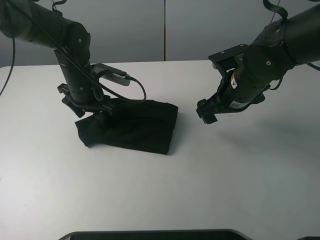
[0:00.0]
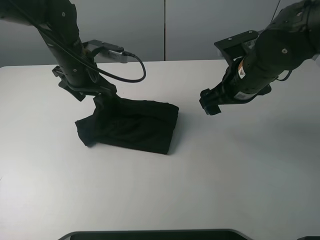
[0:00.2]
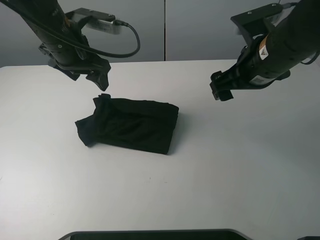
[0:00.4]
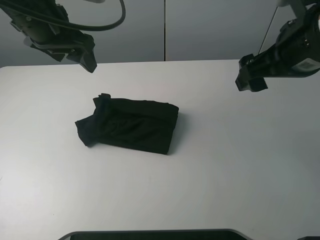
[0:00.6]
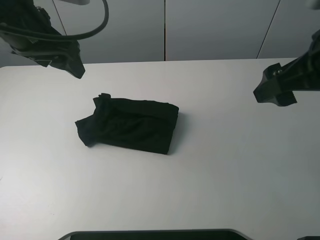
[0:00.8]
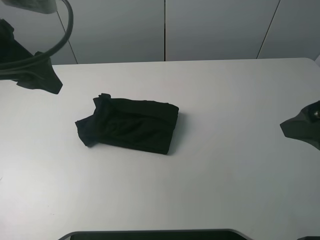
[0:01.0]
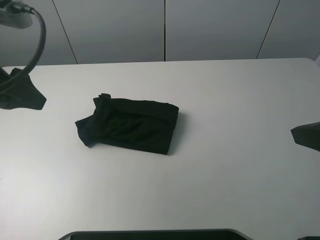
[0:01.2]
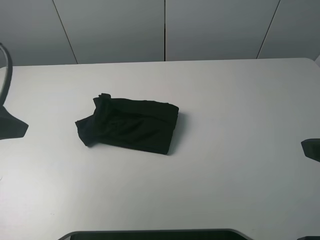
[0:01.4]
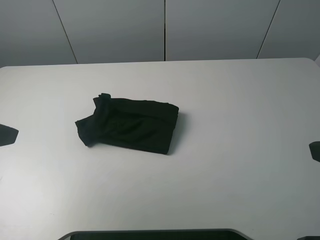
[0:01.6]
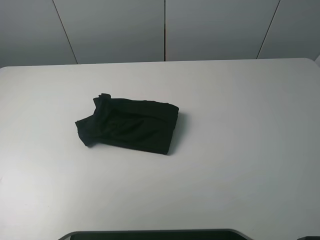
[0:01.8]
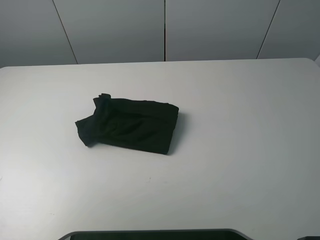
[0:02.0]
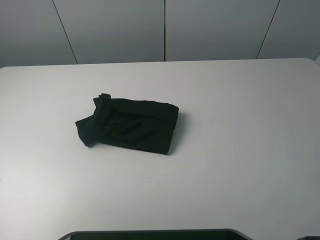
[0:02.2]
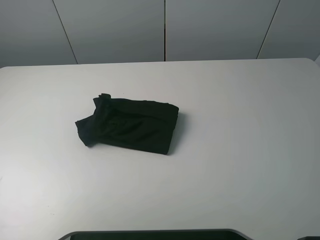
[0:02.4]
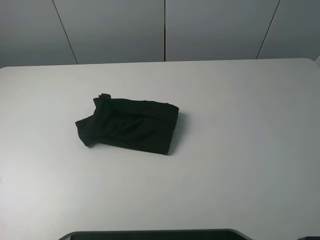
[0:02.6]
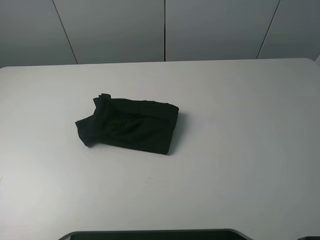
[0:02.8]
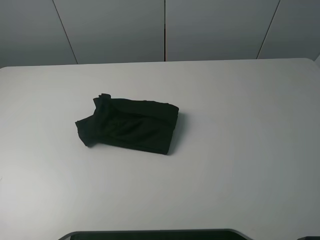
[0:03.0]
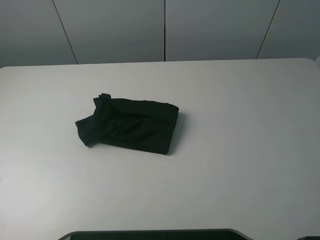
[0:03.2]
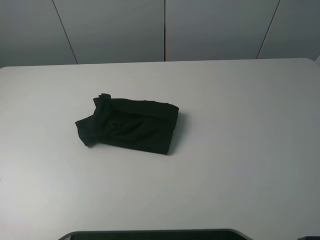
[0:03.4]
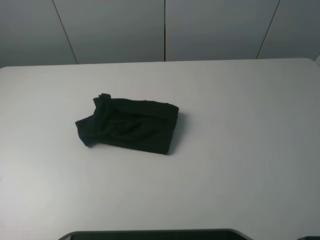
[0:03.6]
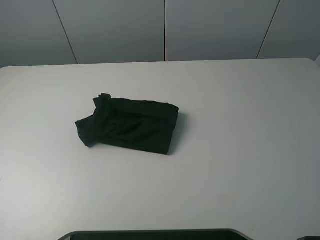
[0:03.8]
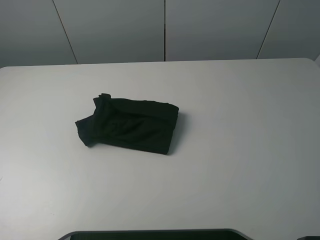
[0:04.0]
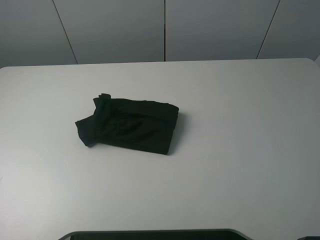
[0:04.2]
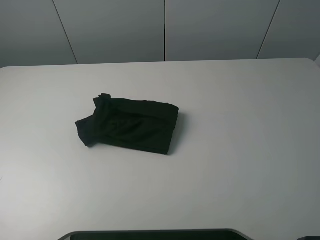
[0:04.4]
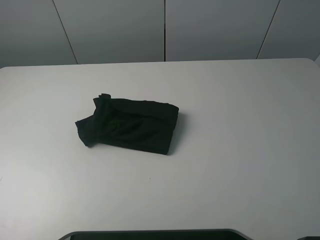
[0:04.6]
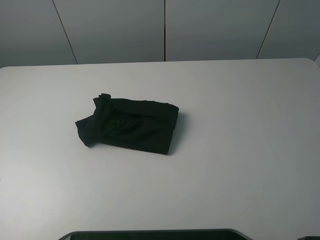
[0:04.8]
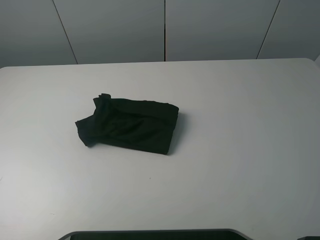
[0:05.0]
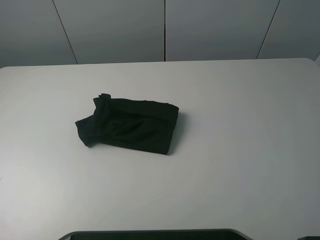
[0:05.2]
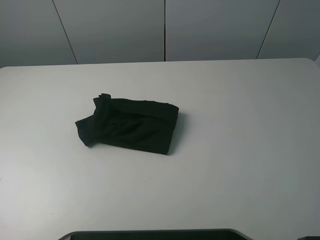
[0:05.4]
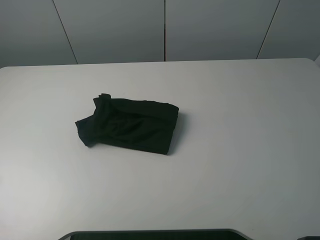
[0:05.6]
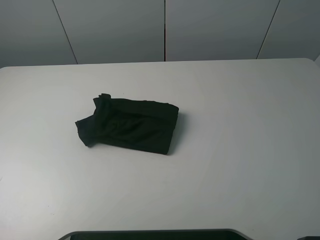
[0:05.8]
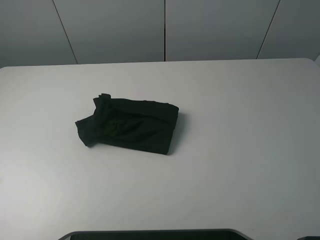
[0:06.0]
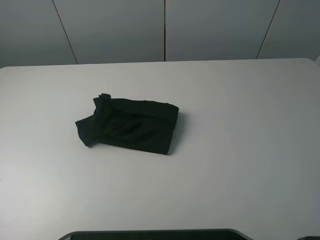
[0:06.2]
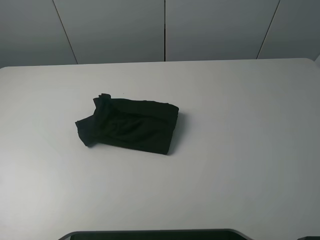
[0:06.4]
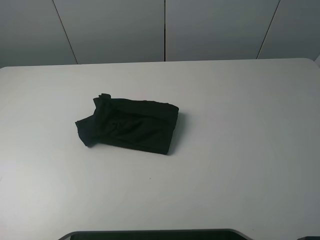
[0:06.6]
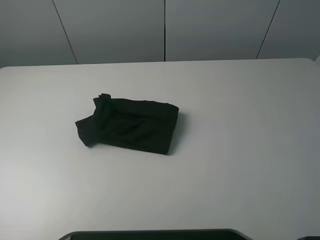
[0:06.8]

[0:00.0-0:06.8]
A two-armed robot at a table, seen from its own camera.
Task of the whole recording: fold the clothes on the table.
0:00.0 to 0:01.4: The right gripper travels backward, upward and to the right by about 25 cm; the left gripper is displaced backward, upward and to the left by approximately 30 cm.
0:01.4 to 0:02.8: The left gripper moves backward and to the left, about 15 cm.
0:05.4 to 0:06.8: The two grippers keep their place.

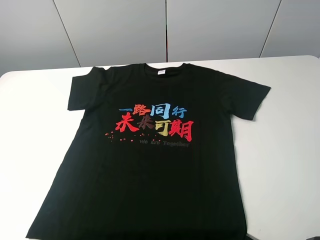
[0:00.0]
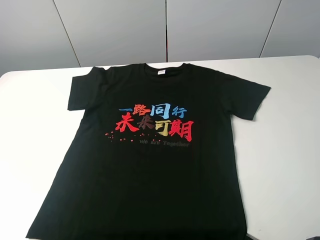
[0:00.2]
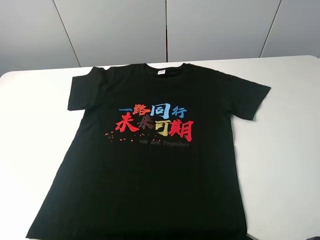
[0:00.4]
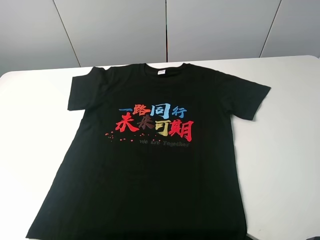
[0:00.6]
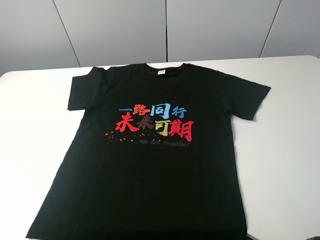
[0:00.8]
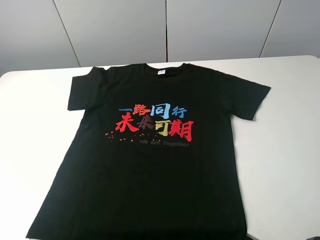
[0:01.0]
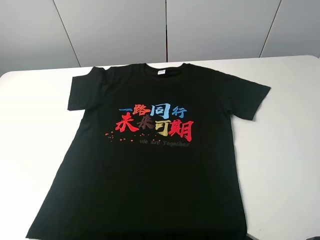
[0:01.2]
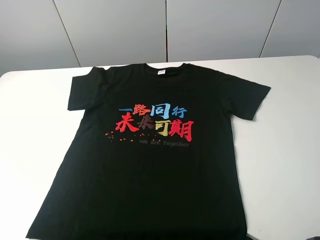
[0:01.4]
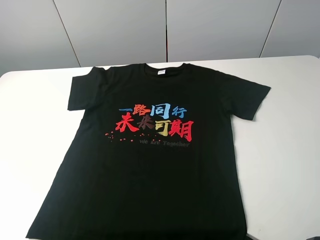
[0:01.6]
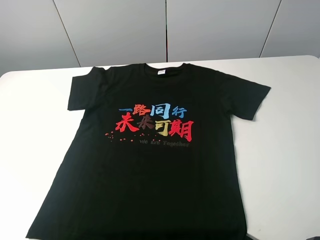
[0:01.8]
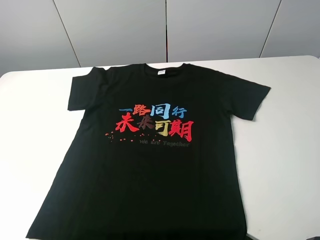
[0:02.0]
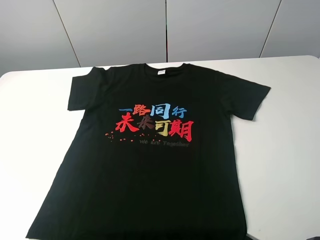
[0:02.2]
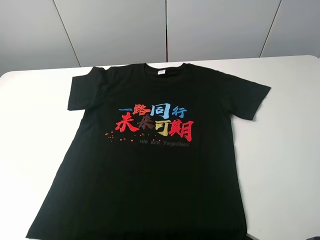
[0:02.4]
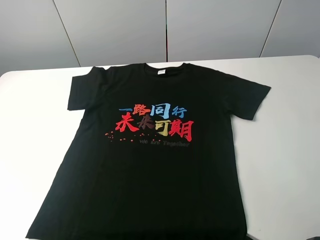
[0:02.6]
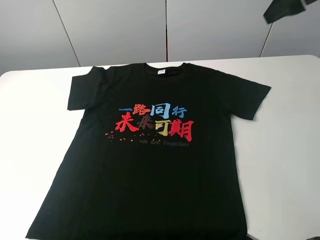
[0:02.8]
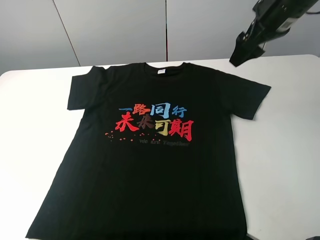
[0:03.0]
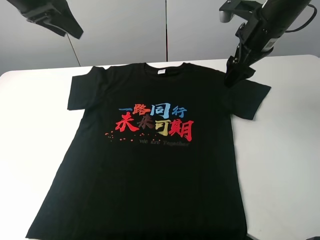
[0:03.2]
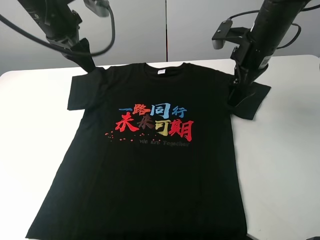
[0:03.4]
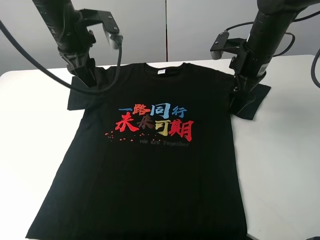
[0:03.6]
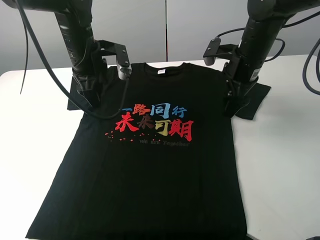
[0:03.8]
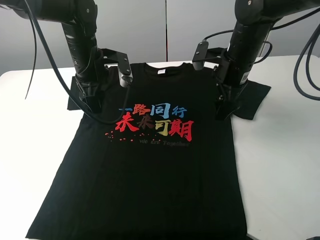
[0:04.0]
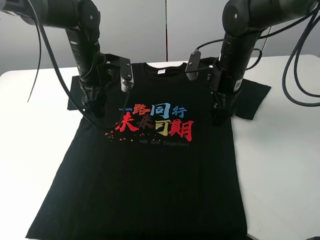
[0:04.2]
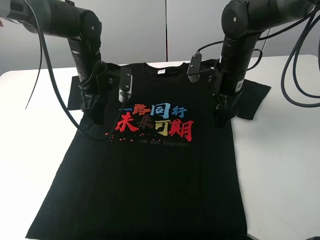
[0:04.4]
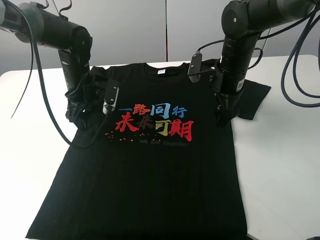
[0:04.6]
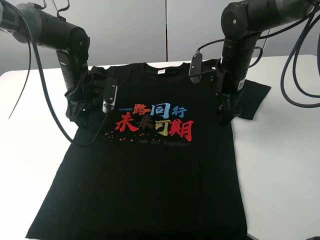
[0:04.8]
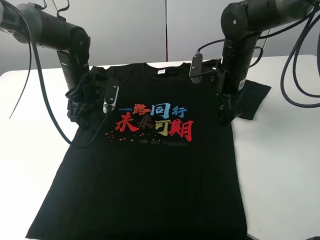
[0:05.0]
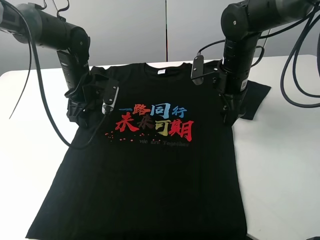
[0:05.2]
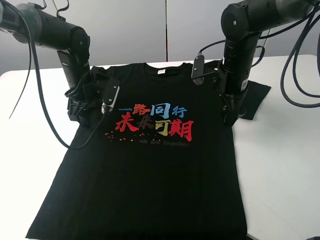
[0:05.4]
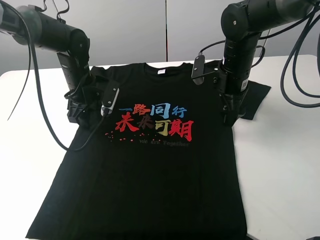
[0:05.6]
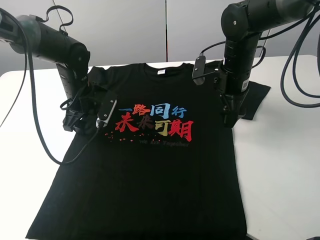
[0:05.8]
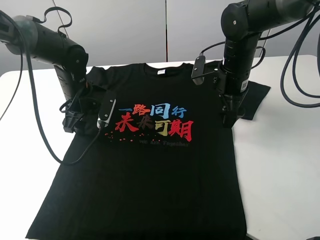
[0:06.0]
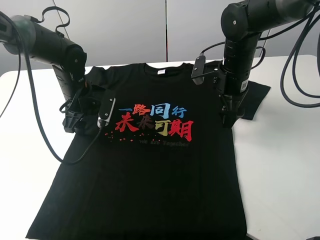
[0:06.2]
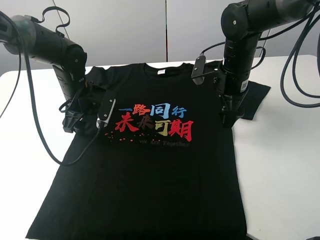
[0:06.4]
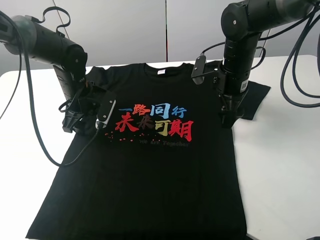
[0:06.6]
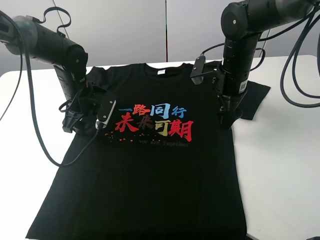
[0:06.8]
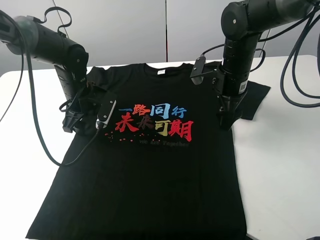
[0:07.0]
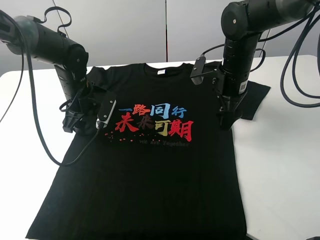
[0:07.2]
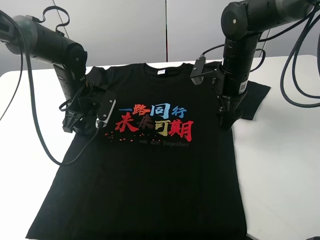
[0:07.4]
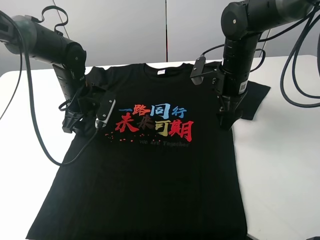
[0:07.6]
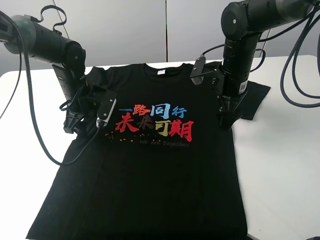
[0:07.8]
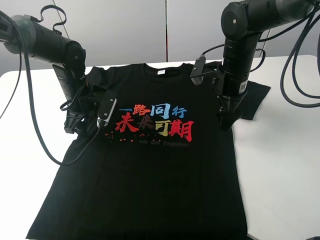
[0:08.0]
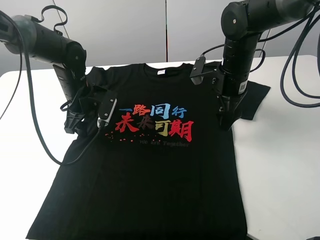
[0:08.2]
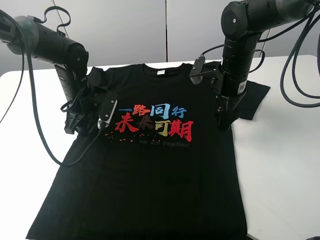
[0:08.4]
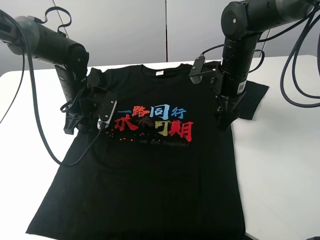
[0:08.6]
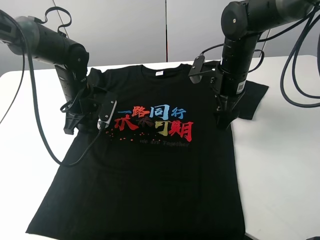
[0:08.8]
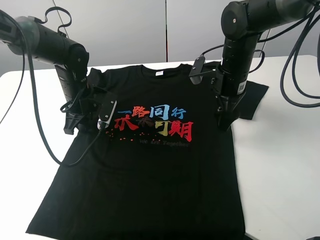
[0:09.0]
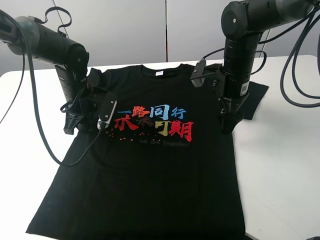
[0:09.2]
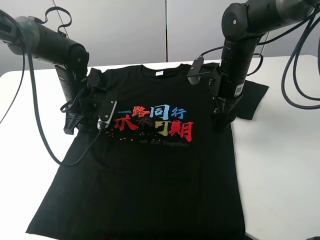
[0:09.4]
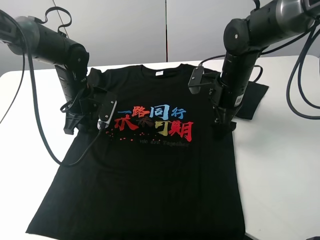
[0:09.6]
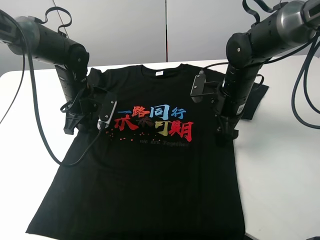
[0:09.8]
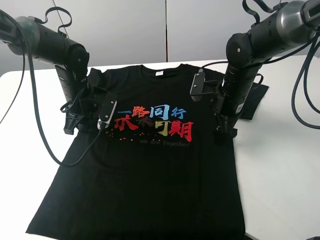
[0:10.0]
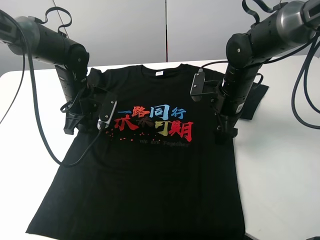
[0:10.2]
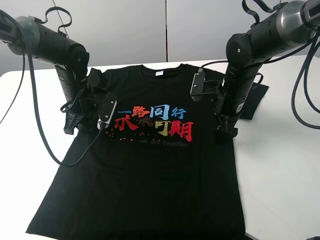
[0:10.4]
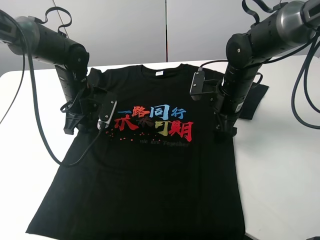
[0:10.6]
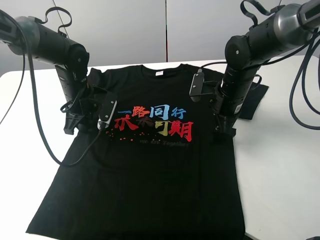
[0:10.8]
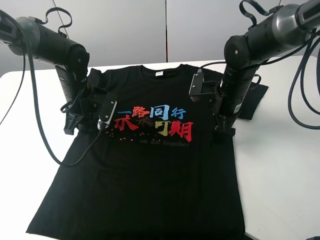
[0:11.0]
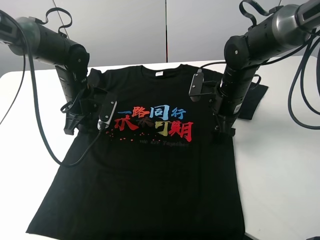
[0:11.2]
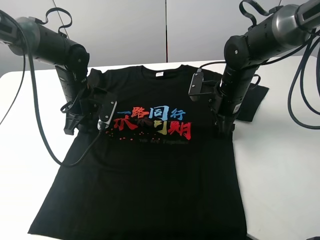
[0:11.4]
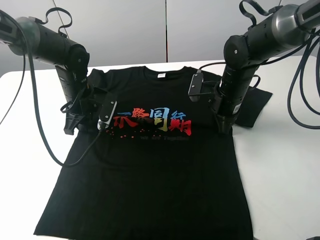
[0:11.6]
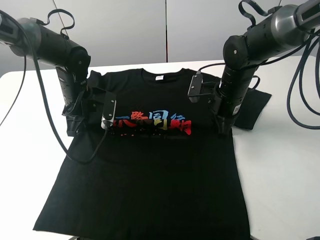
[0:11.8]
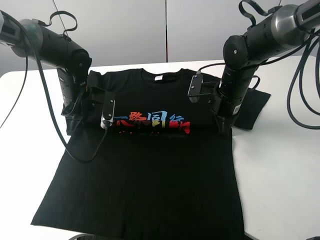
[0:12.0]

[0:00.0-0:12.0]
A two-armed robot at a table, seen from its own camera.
Task of the whole recording: fold the clothes on the table.
Step, 0:00.0 to 0:11.6: Lift the black T-shirt with the left gripper.
0:00.0 to 0:01.6: The two grippers keep their place.
0:01.6 to 0:03.0: Both grippers travel together forward, approximately 35 cm.
0:03.0 to 0:04.4: The left gripper moves downward and to the right, roughly 25 cm, while the right gripper travels downward and to the left by roughly 15 cm.
0:04.4 to 0:06.0: The left gripper ends up some 5 cm from where it was.
0:06.0 to 0:07.6: There are only small adjustments of the grippers.
0:07.6 to 0:09.0: The left gripper closes up.
0:09.0 to 0:10.4: The grippers stay close to where they were, moving slightly.
0:10.4 to 0:12.0: The left gripper closes its fingers, while the right gripper closes up.

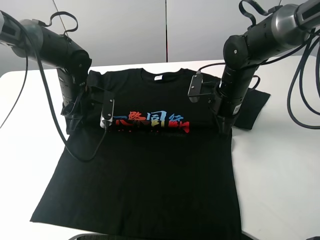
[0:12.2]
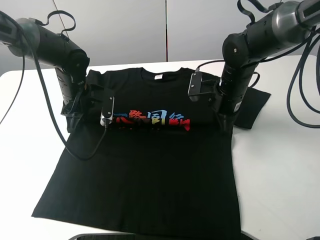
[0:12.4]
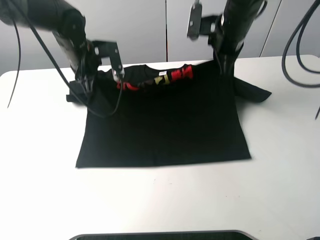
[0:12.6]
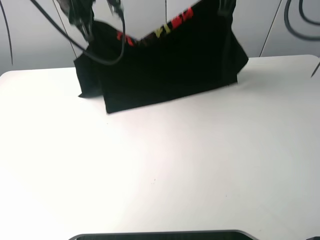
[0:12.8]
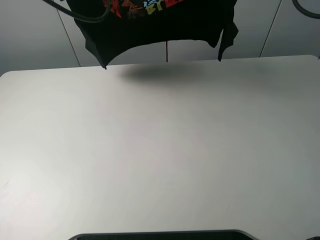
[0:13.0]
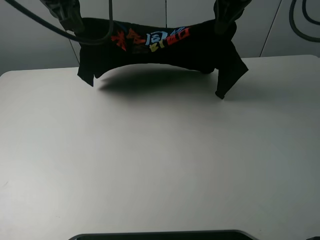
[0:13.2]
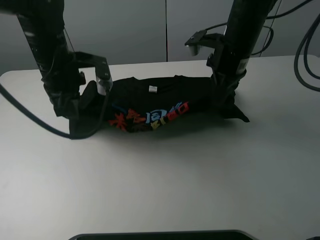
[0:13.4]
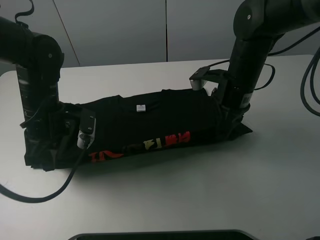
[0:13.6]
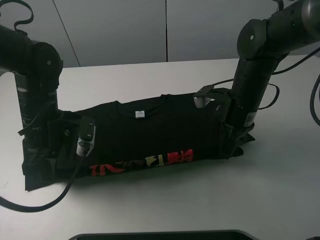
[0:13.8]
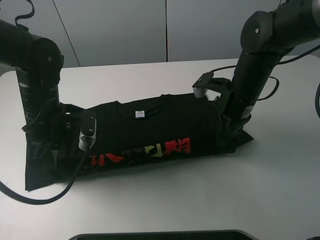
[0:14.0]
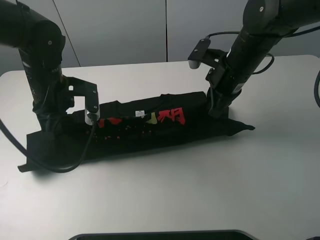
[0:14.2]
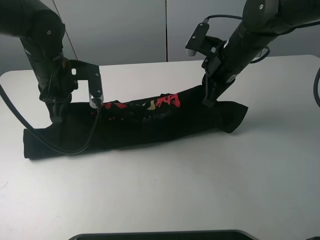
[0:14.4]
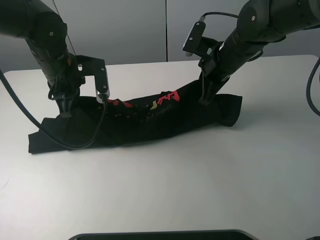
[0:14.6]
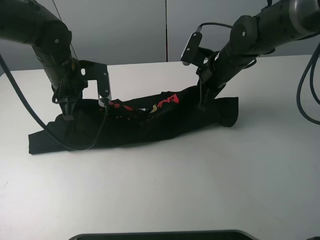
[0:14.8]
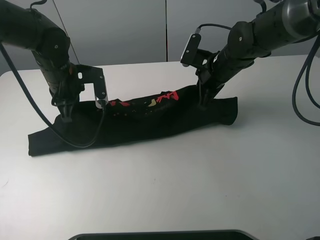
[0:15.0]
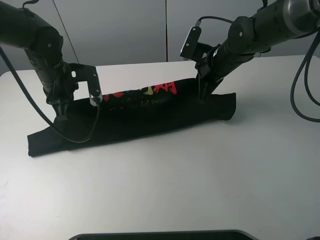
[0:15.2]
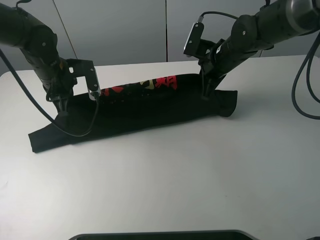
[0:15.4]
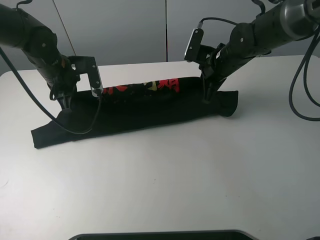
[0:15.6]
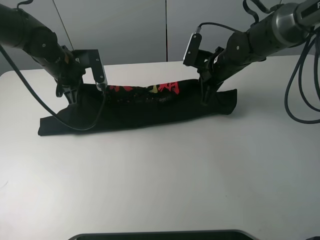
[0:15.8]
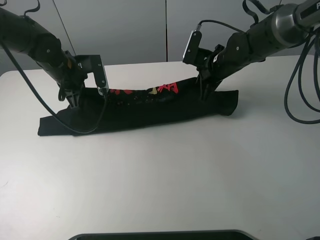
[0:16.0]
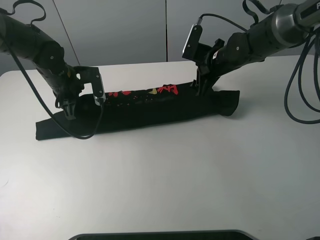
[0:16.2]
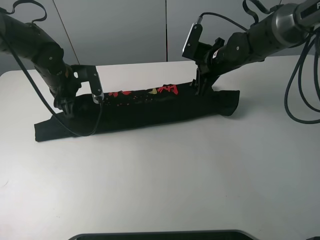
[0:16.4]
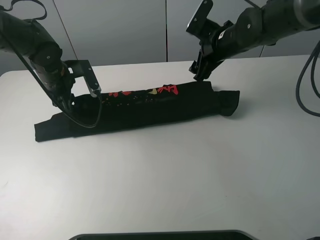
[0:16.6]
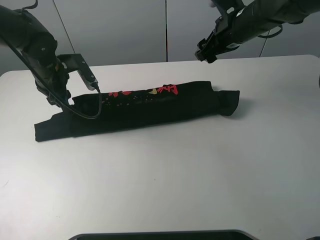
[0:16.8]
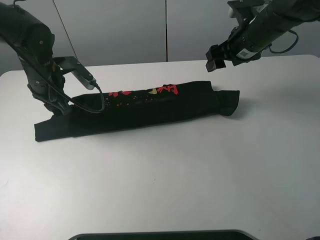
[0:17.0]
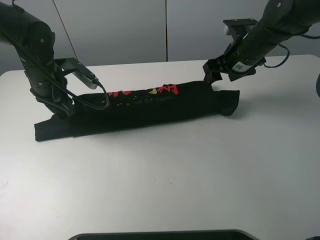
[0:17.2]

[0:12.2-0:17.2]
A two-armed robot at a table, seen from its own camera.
Task of the whole recording: fold the clothes on the table.
Step, 0:12.2 to 0:16.4: Fold the black T-shirt downward with the left gripper.
0:12.2 to 0:13.8: The right gripper shifts approximately 5 cm backward, and goes upward and returns, some 25 cm each way, while the left gripper is displaced backward by approximately 10 cm, and reaches approximately 30 cm upward, then returns.
0:13.8 to 0:15.6: Both grippers move forward, some 15 cm.
0:15.6 to 0:17.2: The left gripper opens up; the right gripper moves roughly 10 cm upward and comes back, and opens its fingers.
